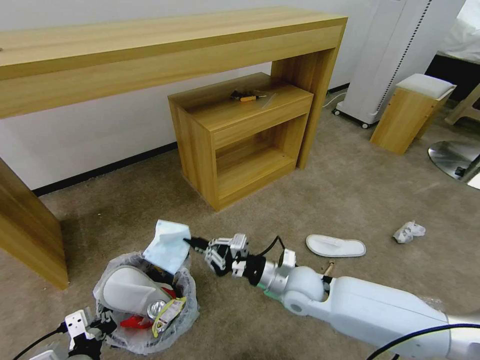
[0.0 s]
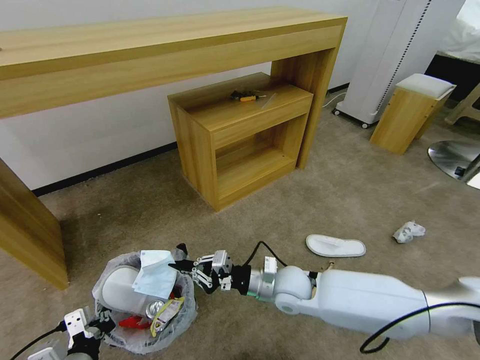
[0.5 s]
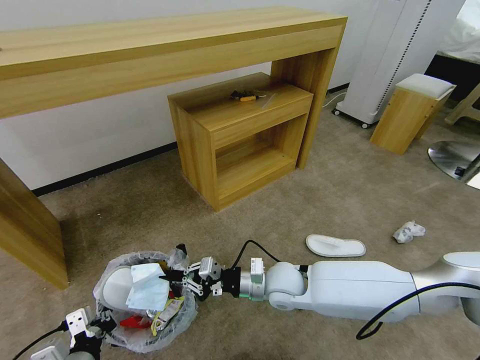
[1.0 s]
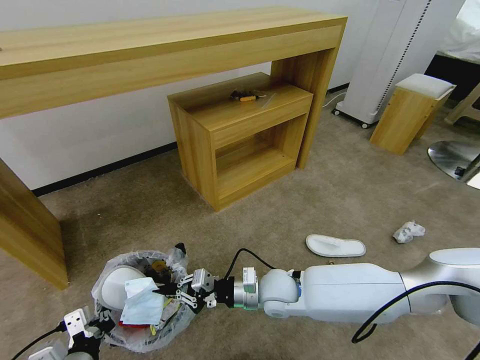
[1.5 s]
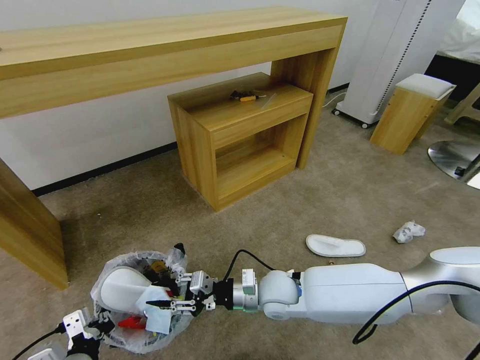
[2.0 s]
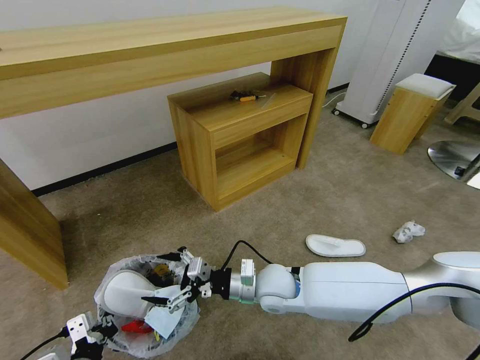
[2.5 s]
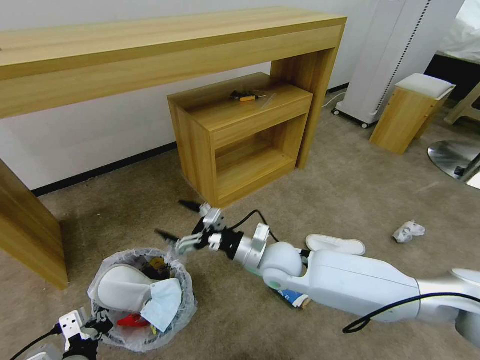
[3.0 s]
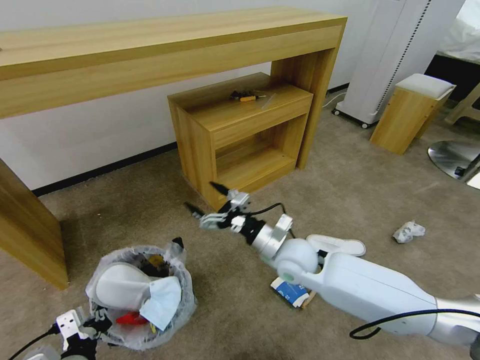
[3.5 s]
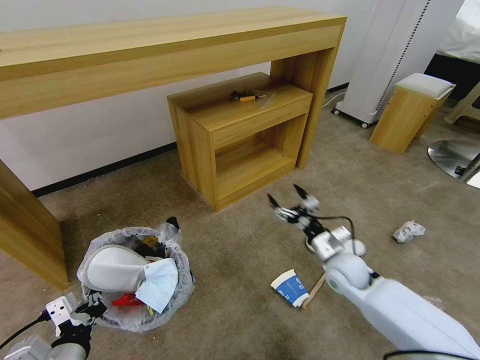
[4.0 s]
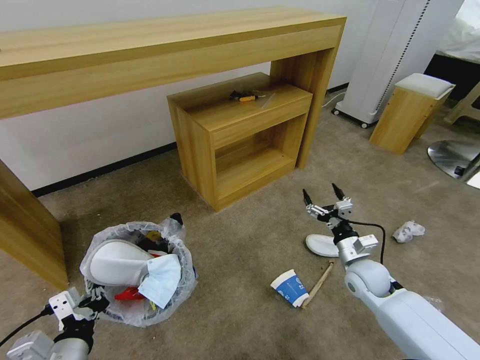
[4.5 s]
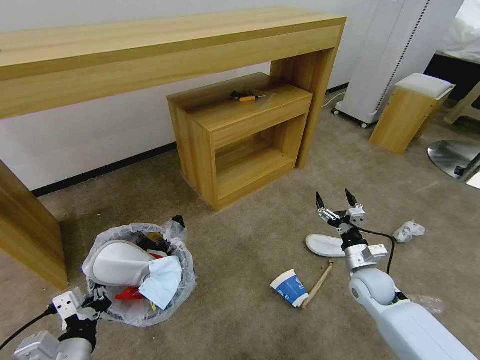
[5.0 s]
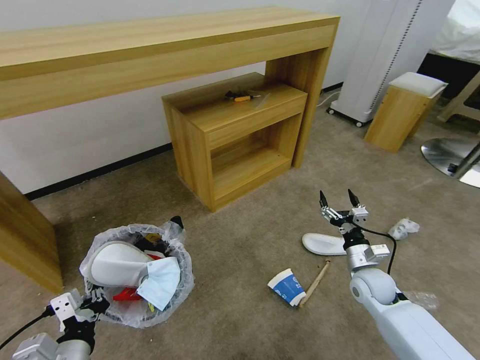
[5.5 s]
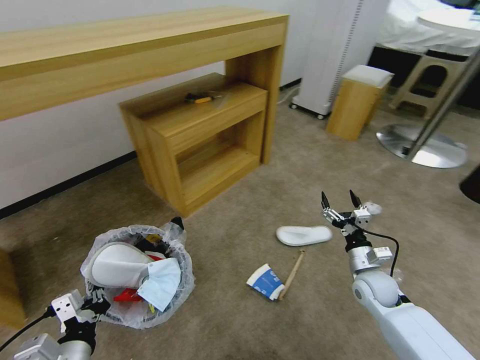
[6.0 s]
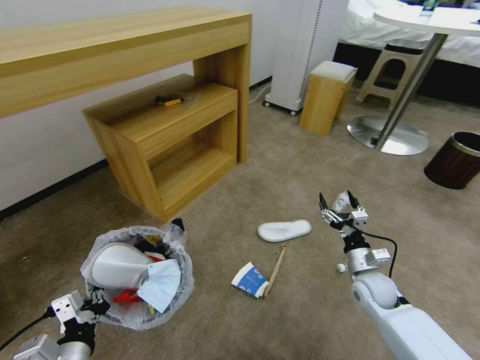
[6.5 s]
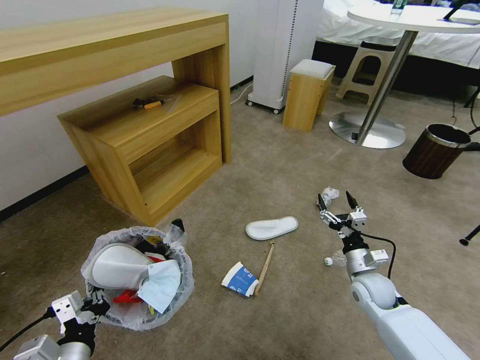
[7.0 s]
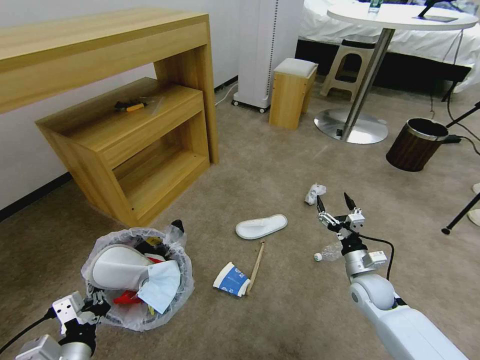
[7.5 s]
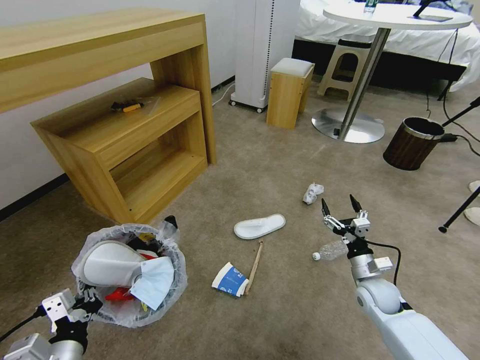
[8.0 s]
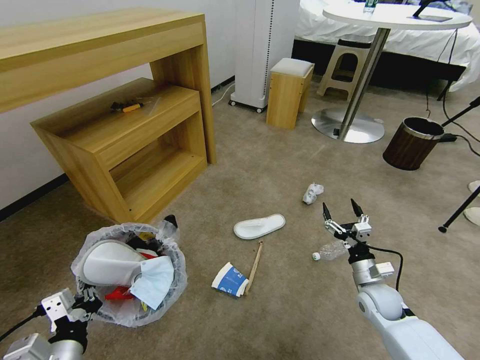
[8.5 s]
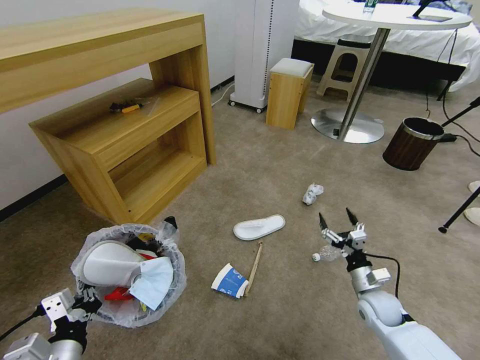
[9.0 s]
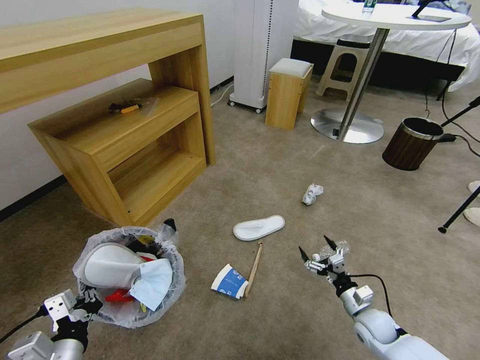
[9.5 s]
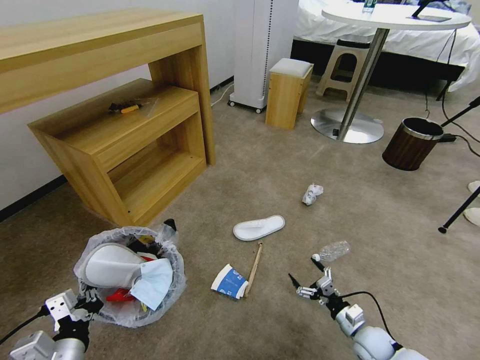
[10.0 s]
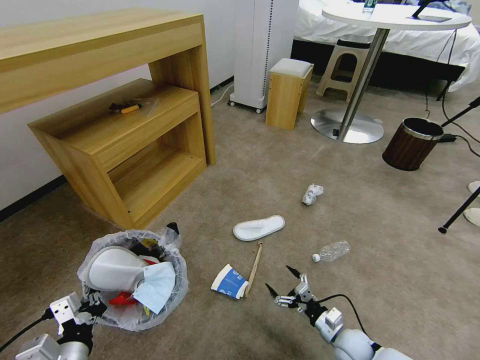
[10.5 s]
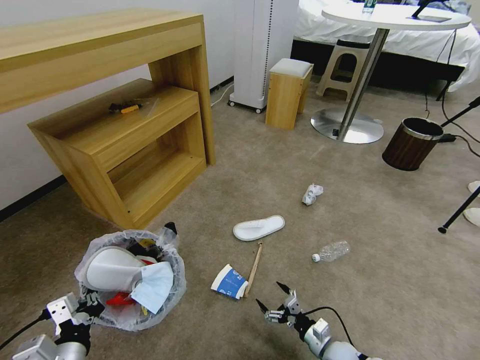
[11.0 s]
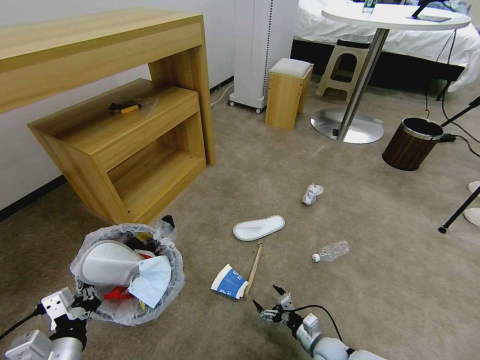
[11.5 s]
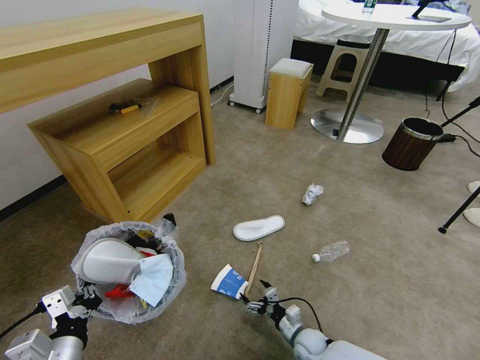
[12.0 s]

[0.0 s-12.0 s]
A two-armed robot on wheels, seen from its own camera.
Task of the whole recording: Pick up the trash bin and place the garbage on the floor into it.
0.0 to 2.0 s: The right gripper opens.
2.0 to 4.0 s: The right gripper moves to the right, about 20 cm, and opens its fingers.
4.0 to 6.0 s: The right gripper heads to the right, covering roughly 10 cm.
8.0 to 10.0 s: The right gripper goes about 15 cm downward and backward.
10.0 to 12.0 s: The right gripper is displaced to the left and downward by about 15 cm.

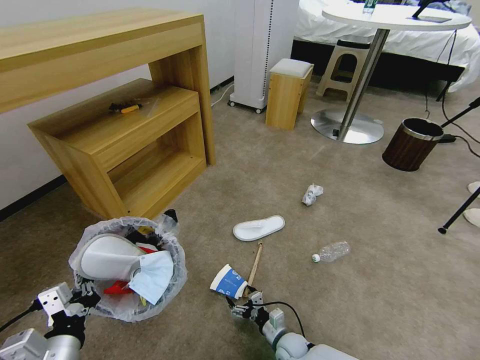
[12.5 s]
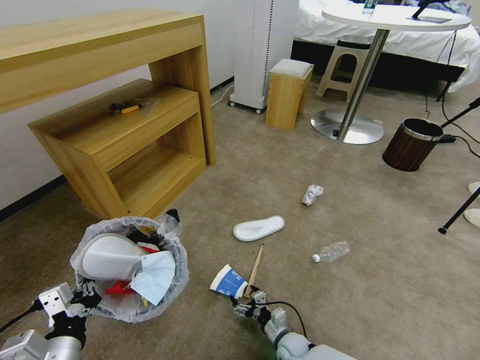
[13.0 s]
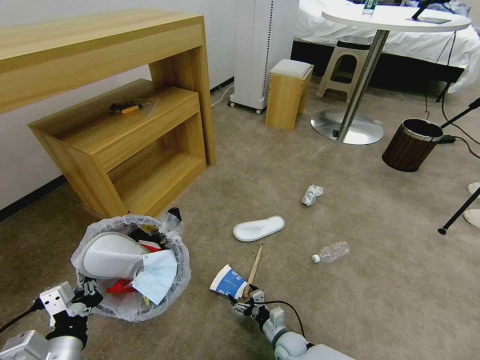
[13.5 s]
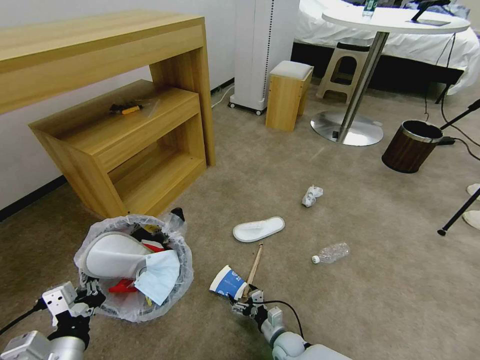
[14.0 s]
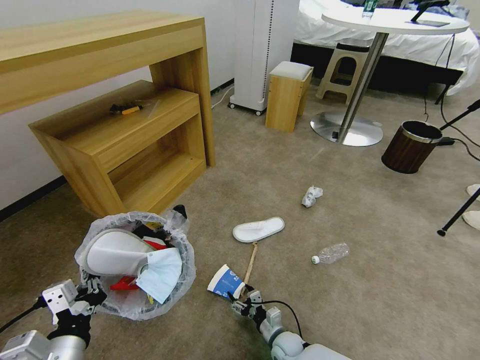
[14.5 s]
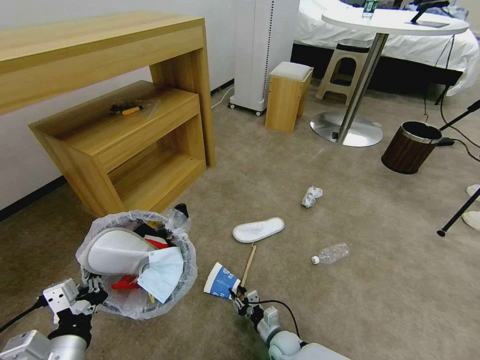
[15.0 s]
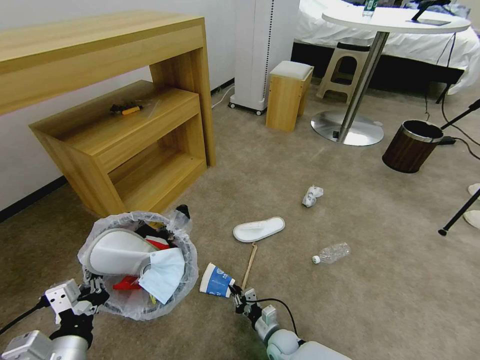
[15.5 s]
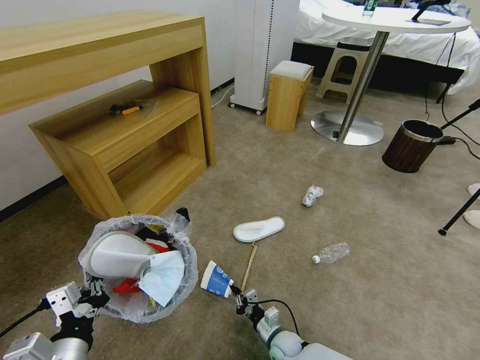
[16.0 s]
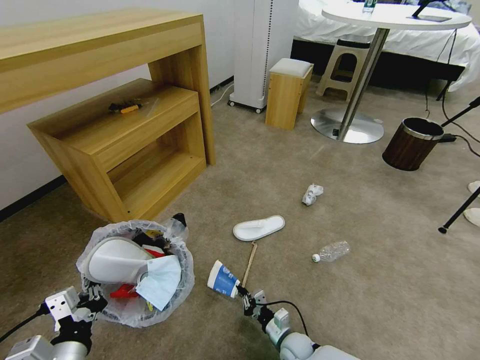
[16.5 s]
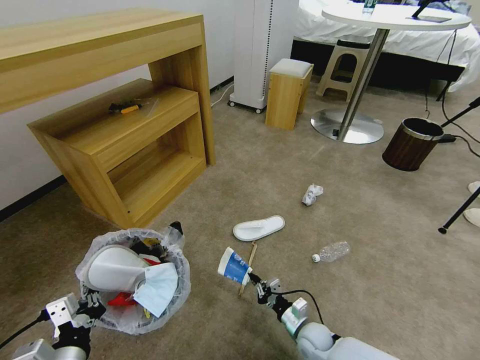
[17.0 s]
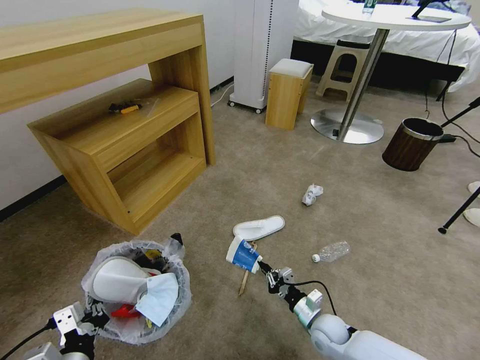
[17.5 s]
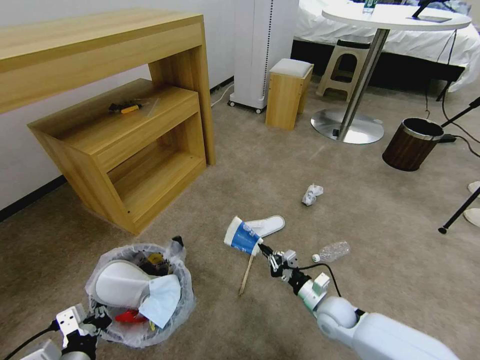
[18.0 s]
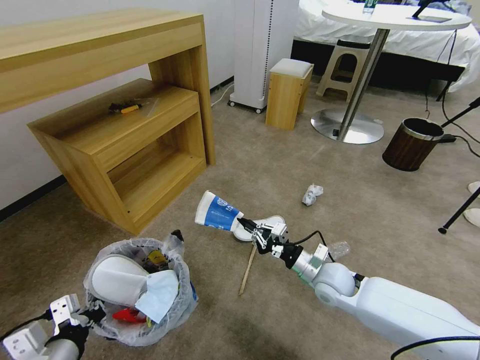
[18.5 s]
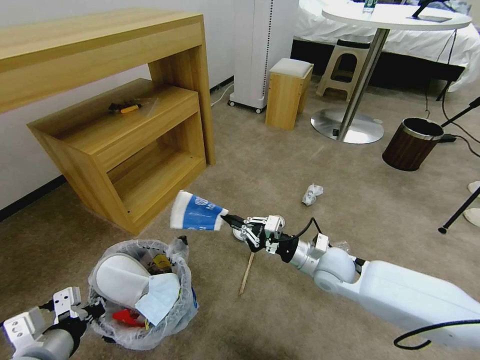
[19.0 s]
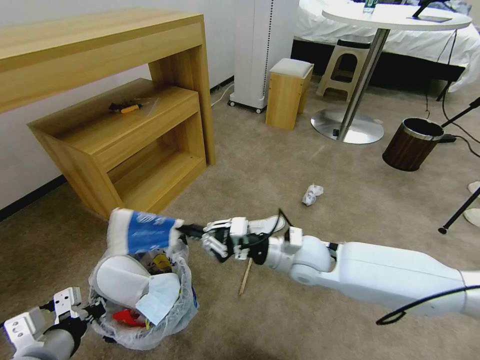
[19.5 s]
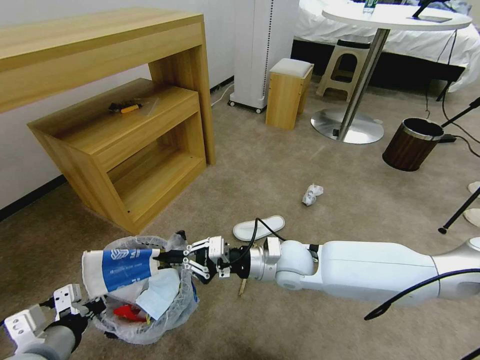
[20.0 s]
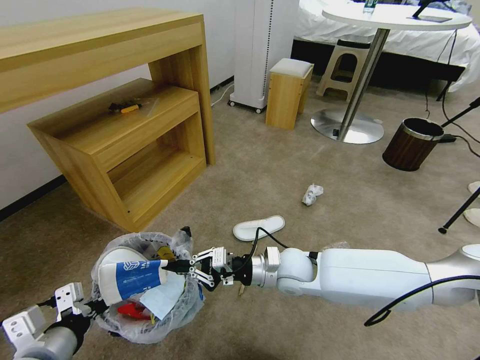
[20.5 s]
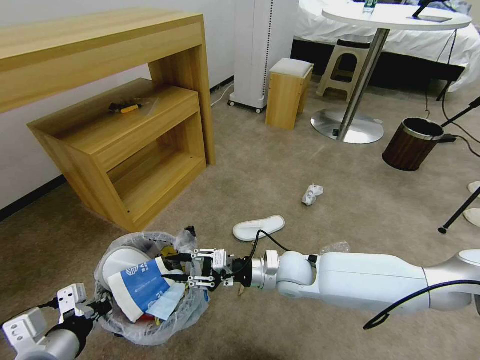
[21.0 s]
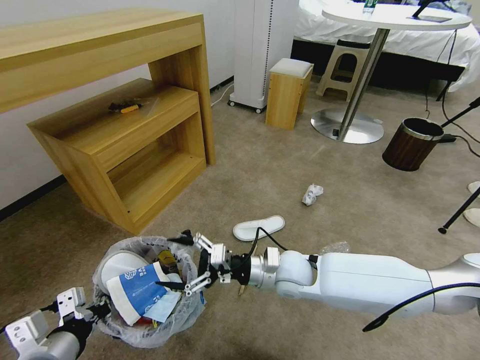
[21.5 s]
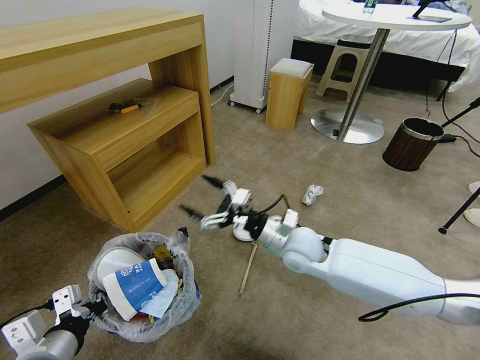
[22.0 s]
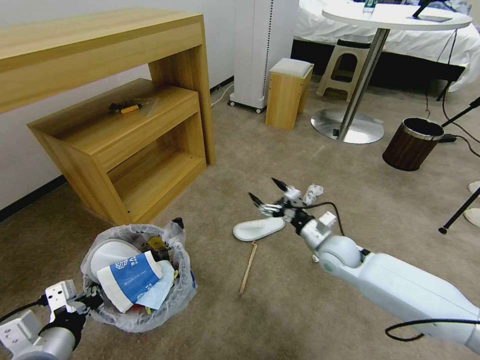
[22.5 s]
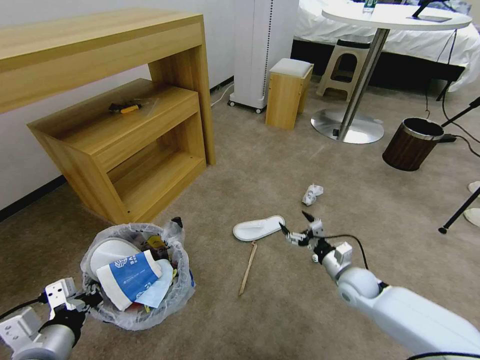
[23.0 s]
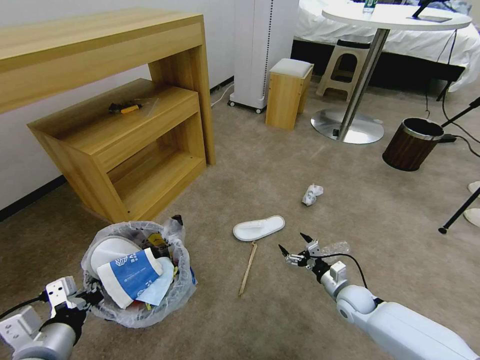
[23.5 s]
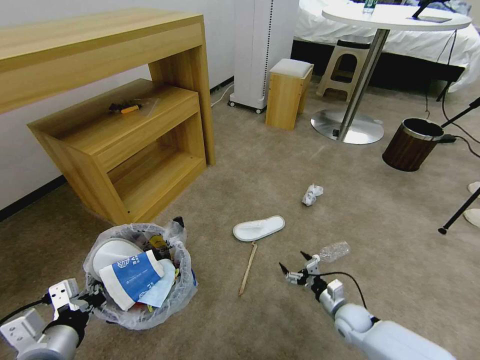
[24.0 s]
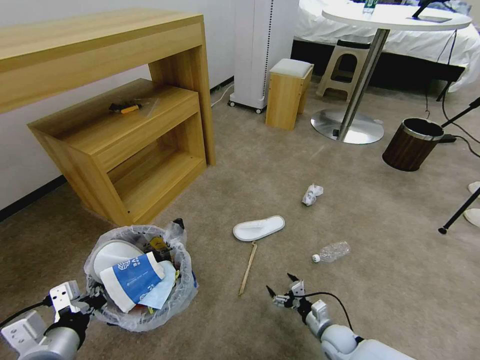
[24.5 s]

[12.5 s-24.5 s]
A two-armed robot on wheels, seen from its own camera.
Task of the whole recording: Pick up the trash bin and place the garbage on the floor into it.
12.5 to 14.5 s: The grippers move only a little.
14.5 to 16.5 s: The right gripper closes.
16.5 to 18.5 s: The right gripper travels upward and forward by about 25 cm.
18.5 to 20.5 s: The right gripper travels to the left by about 10 cm.
20.5 to 22.5 s: The right gripper moves to the right, some 15 cm, and opens.
22.5 to 24.5 s: The right gripper goes approximately 30 cm downward and backward.

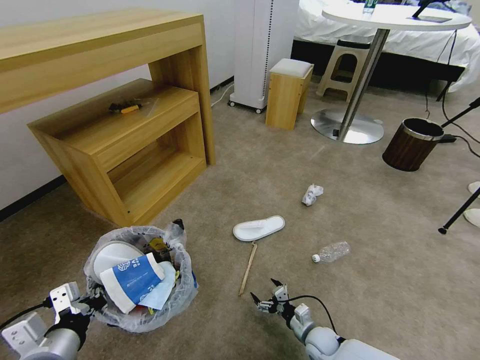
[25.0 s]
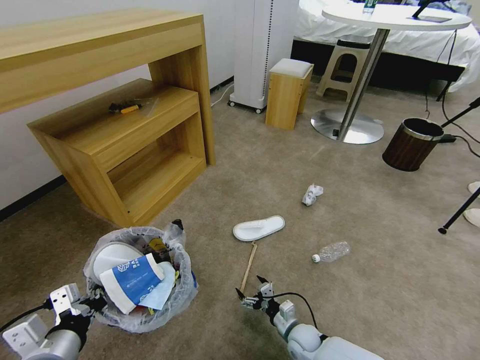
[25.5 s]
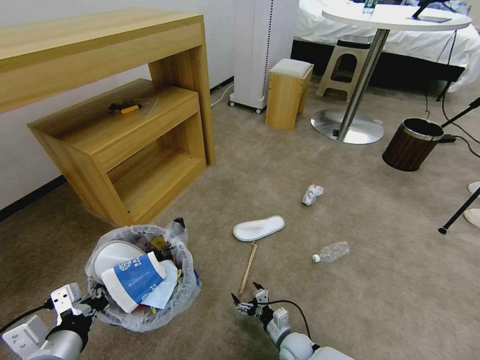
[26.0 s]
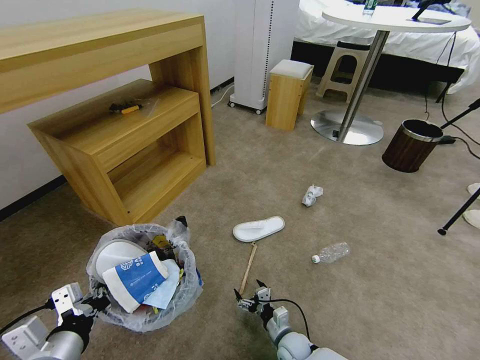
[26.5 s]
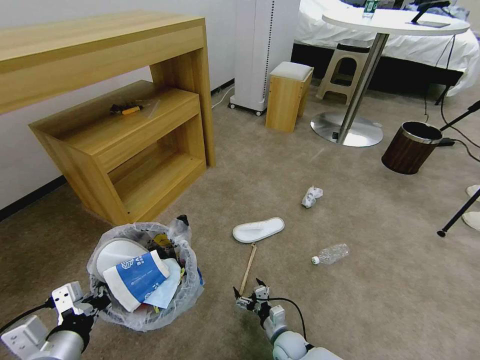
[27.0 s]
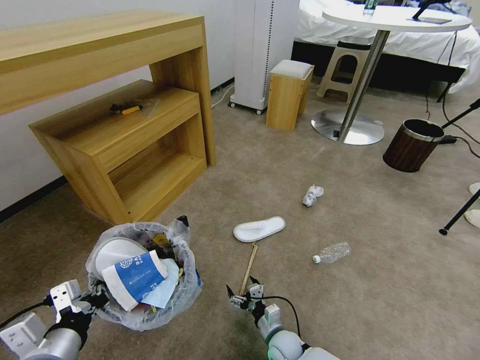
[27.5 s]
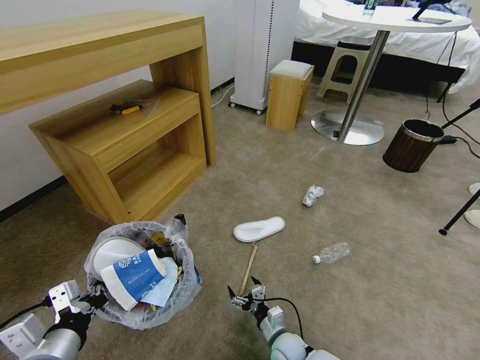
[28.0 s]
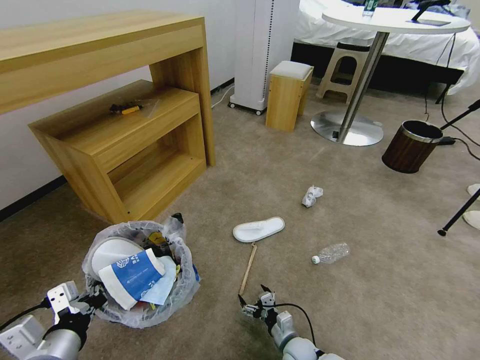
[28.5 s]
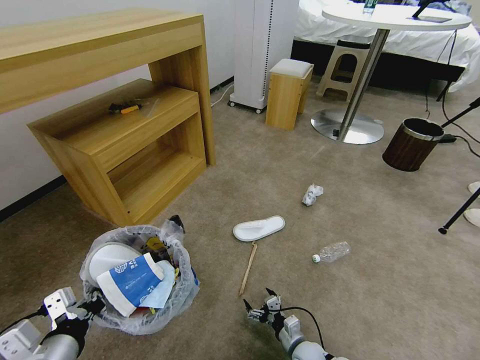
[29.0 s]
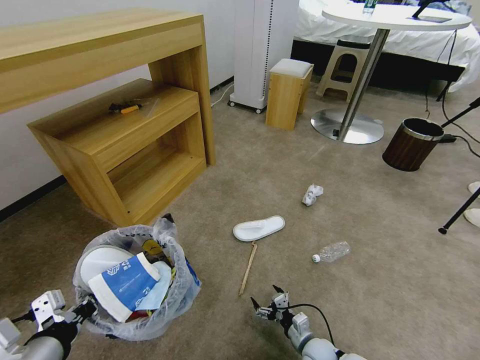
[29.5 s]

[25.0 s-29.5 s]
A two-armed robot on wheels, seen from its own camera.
Task of the whole recording: Pick up the trash bin and place the garbage on the floor into it.
25.0 to 27.0 s: The right gripper shifts roughly 10 cm to the left.
27.0 to 29.5 s: The right gripper goes approximately 10 cm to the right.
